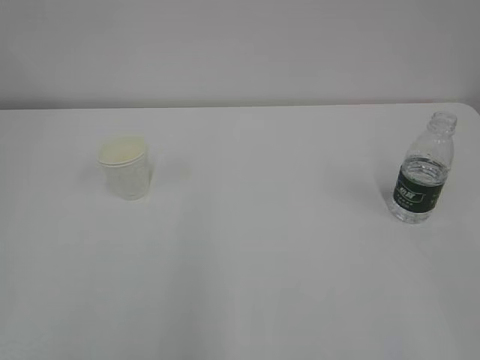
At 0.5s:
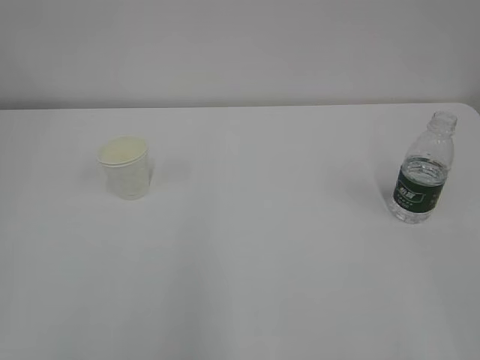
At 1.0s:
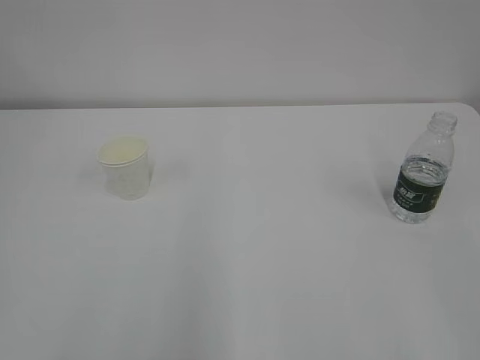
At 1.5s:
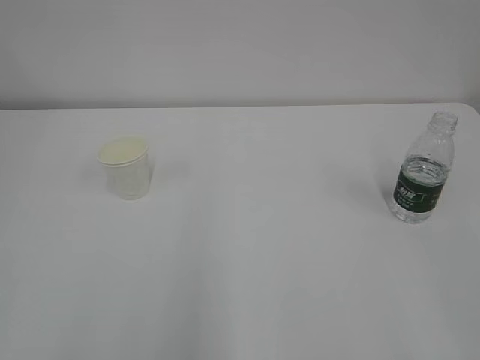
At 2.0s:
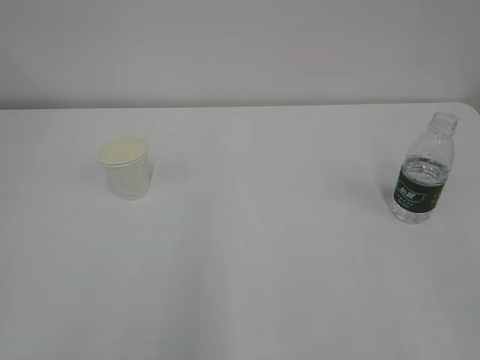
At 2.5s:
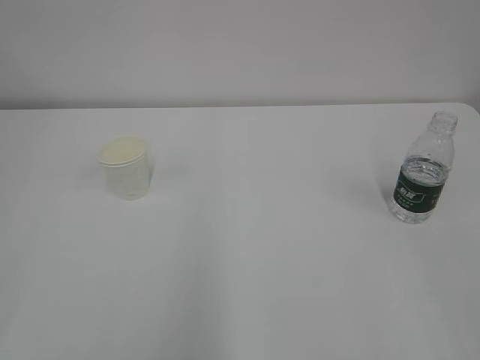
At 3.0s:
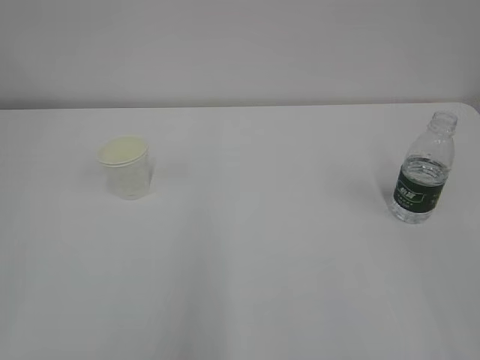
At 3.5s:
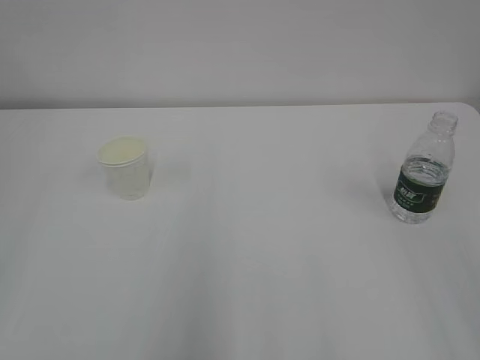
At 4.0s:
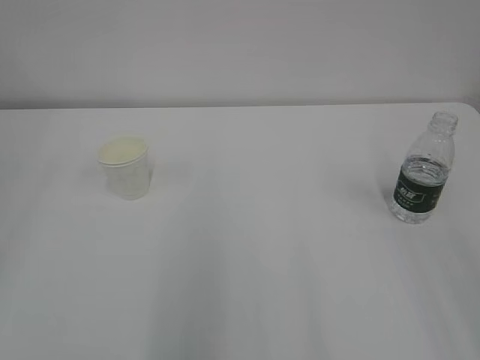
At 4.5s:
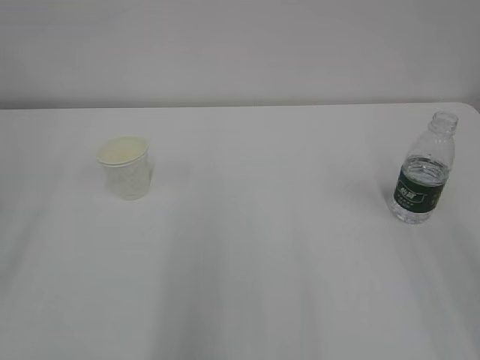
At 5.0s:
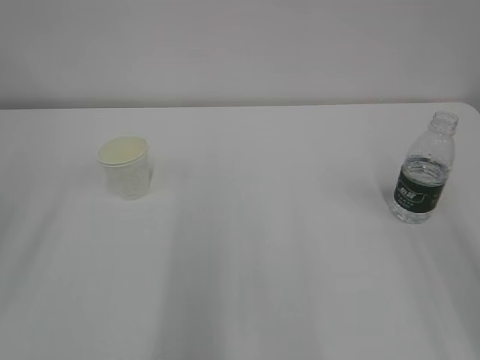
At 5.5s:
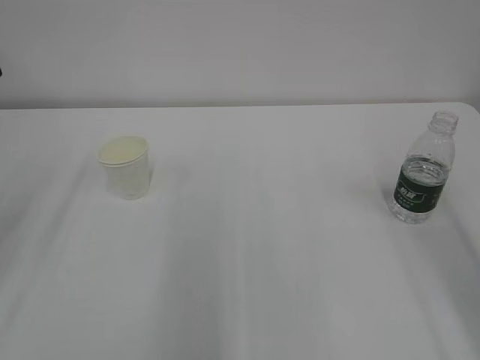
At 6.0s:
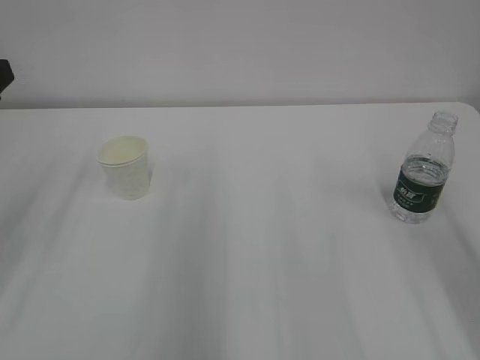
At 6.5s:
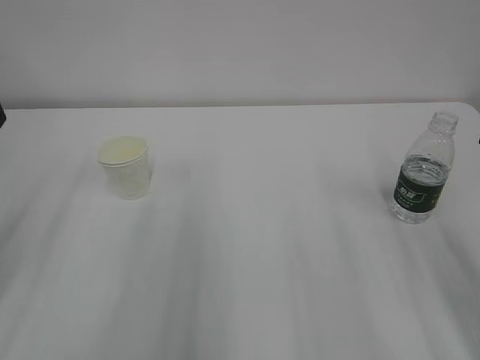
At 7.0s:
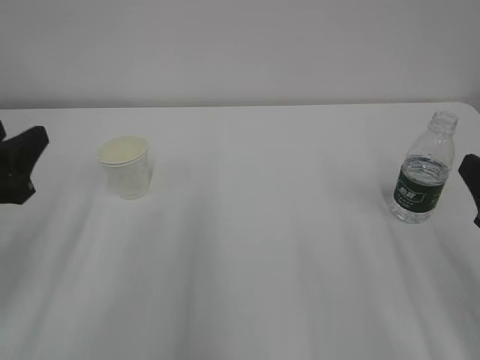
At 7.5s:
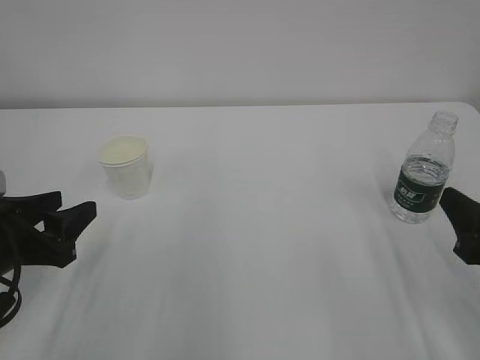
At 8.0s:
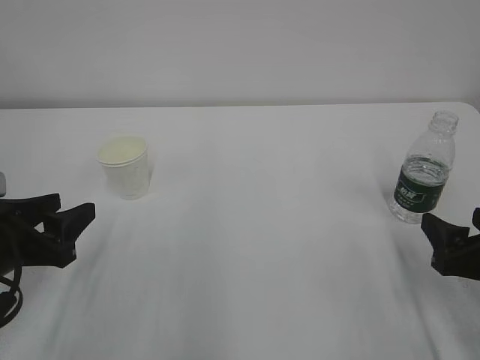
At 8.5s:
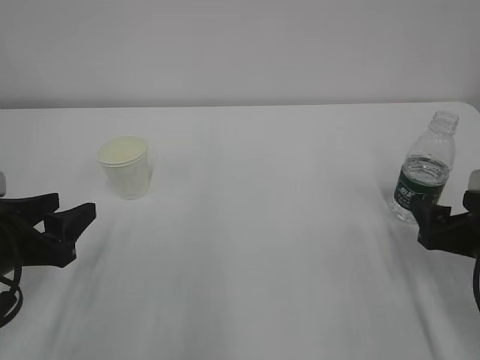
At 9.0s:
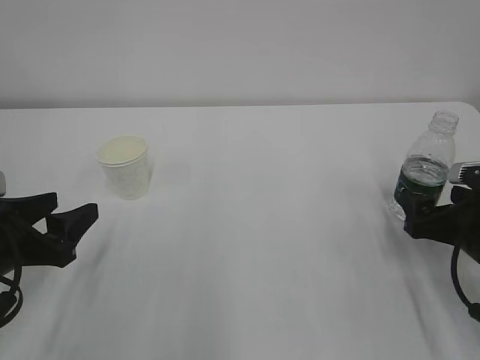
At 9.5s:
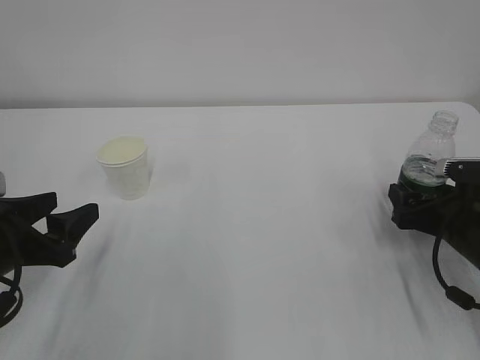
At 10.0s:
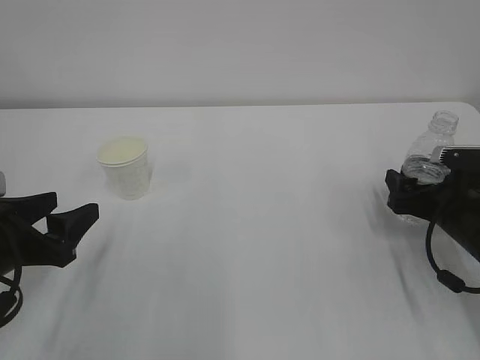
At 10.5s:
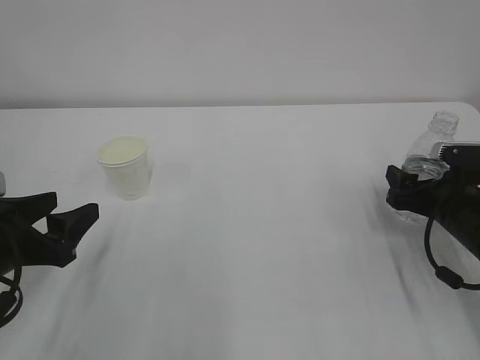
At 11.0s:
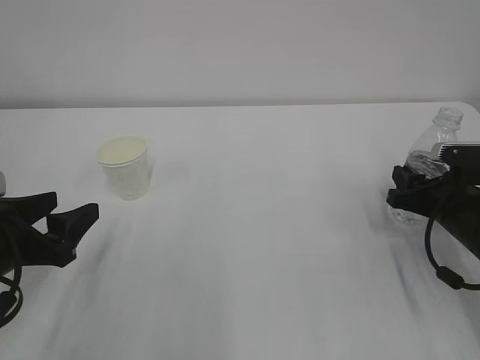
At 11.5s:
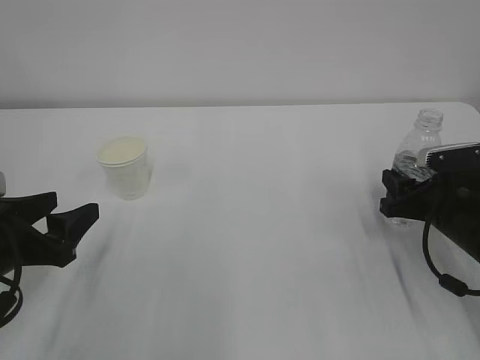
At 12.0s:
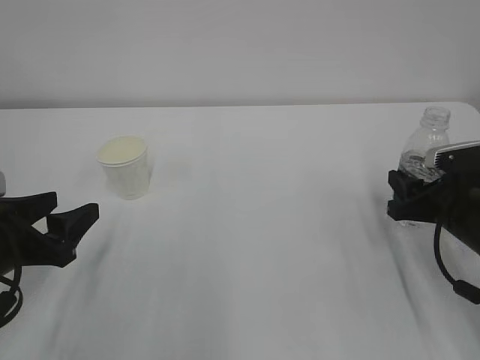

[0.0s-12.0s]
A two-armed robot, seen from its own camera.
6.0s to 8.0s: Both grippers travel together downward, some 15 cm.
8.0s to 10.0s: The right gripper shifts approximately 10 cm forward.
10.0s to 12.0s: The right gripper closes its fingers.

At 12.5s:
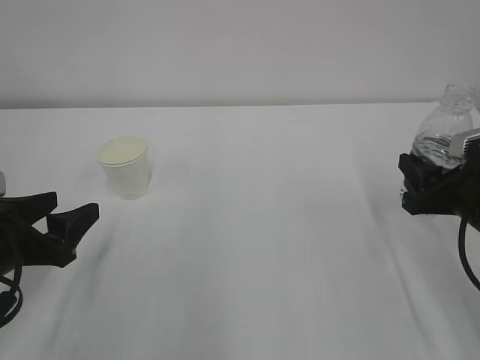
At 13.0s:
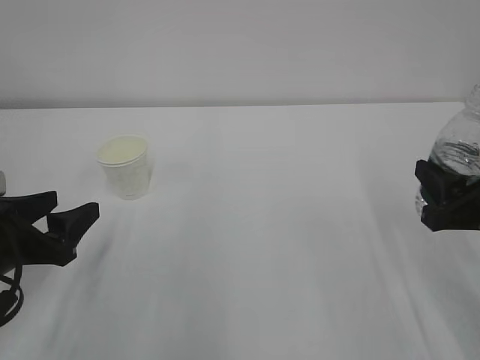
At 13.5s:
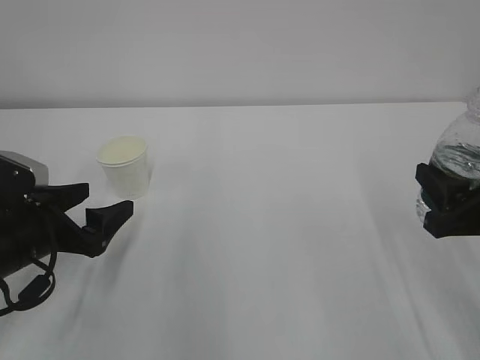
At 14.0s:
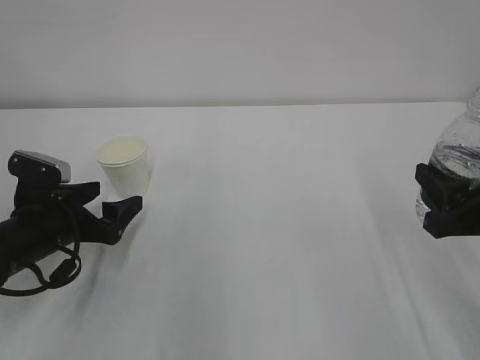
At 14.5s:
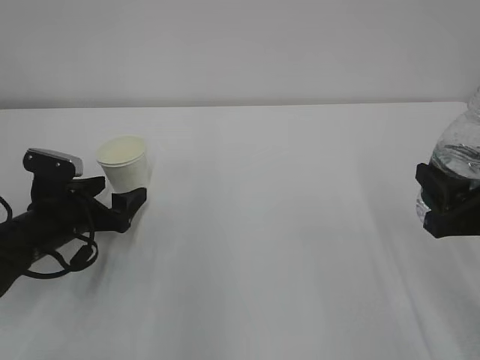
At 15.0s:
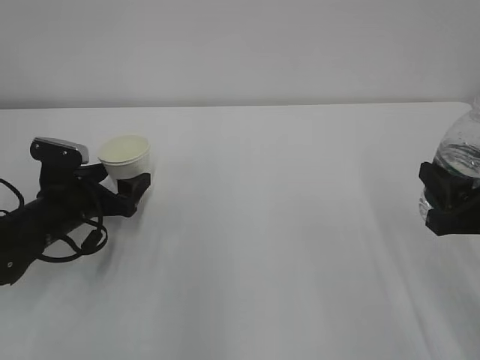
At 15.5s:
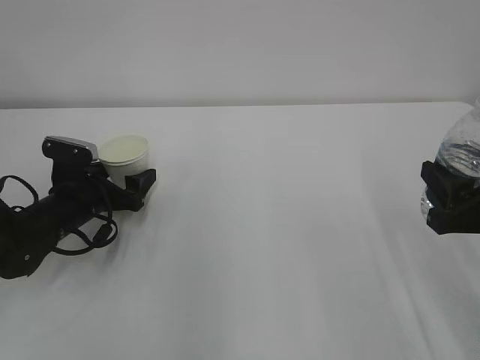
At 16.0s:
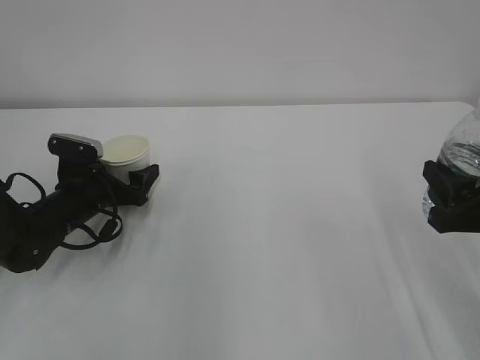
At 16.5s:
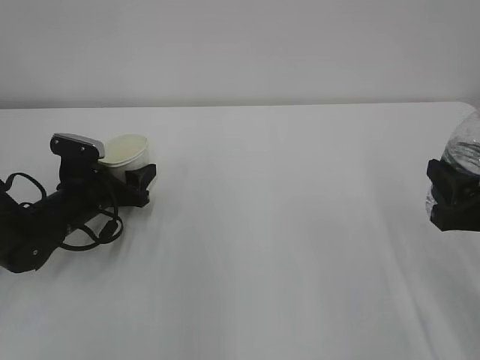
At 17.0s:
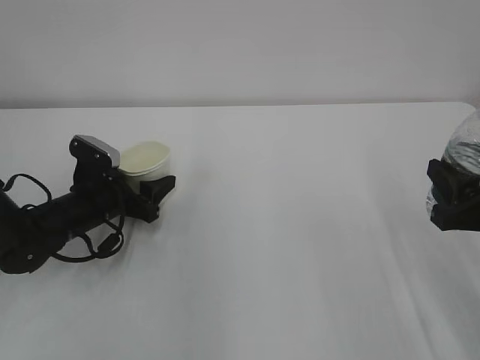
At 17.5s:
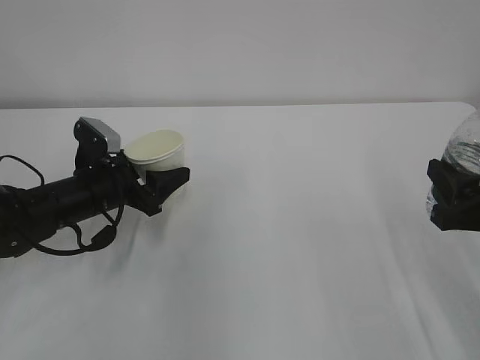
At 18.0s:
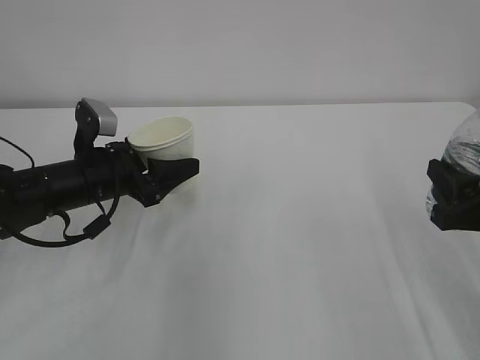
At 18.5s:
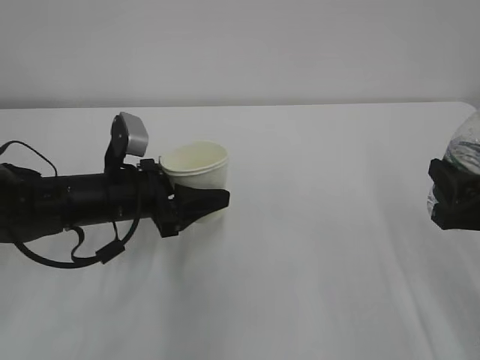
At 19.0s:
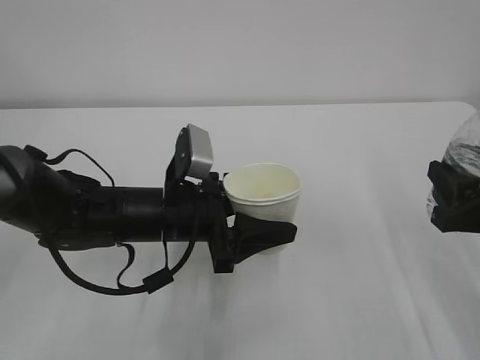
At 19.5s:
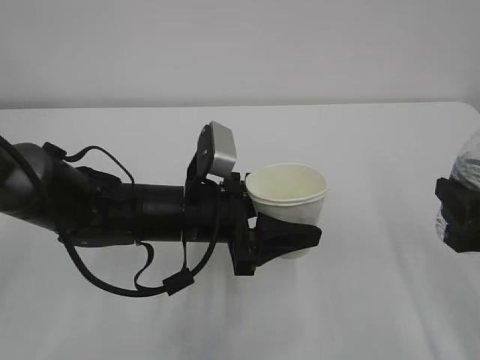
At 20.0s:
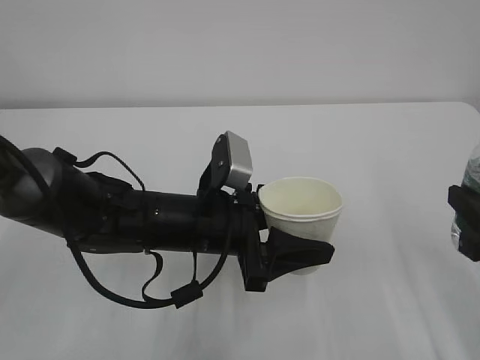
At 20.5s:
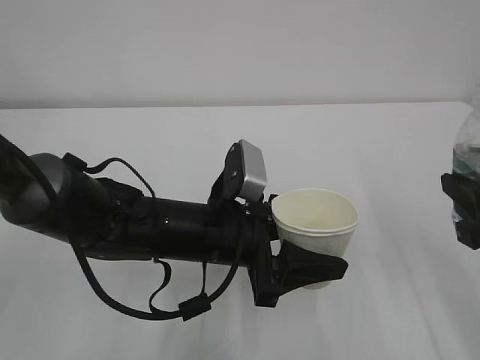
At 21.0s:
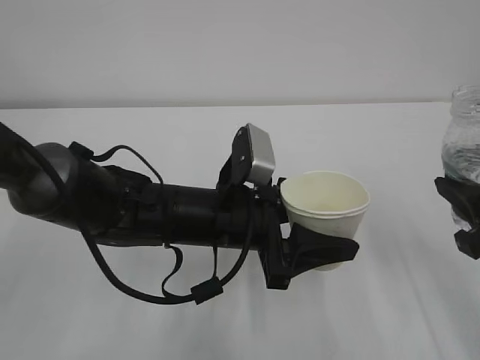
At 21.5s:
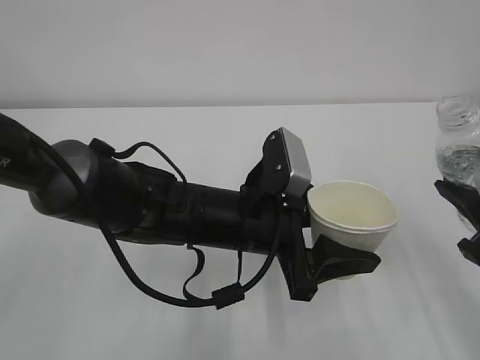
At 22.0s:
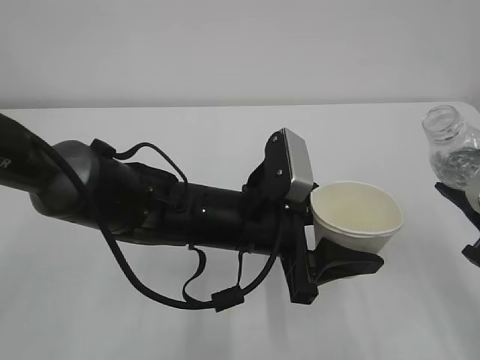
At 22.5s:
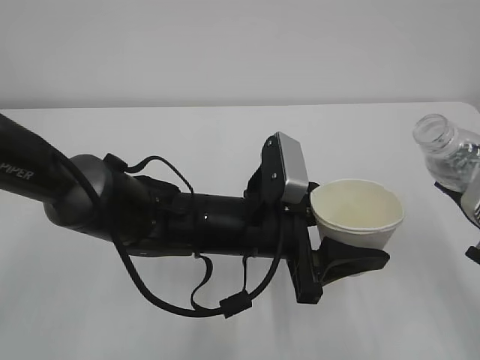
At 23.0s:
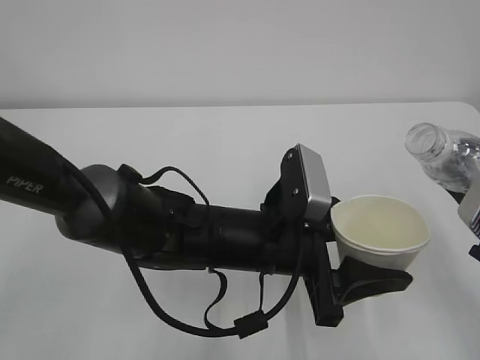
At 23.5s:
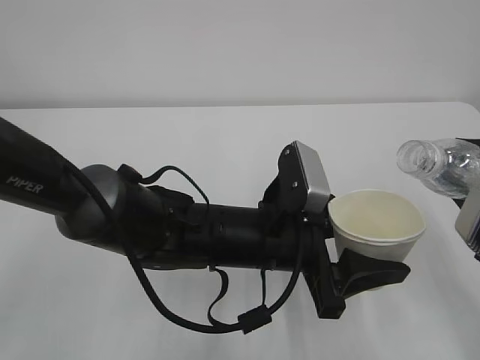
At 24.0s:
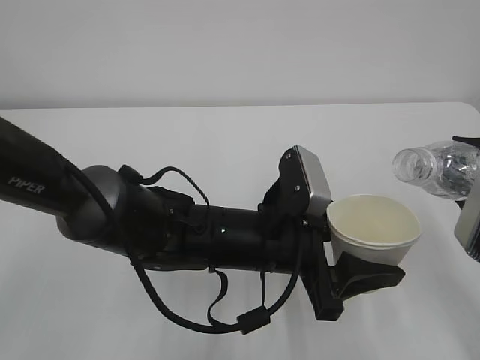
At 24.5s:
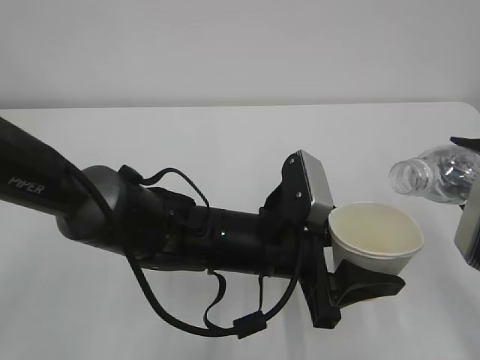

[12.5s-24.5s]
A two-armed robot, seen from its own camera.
12.5s to 14.5s: The left gripper is displaced forward and downward by about 10 cm, and opens.
14.5s to 16.5s: The left gripper goes roughly 5 cm forward, and closes up.
16.5s to 18.5s: The left gripper goes about 10 cm to the right, upward and backward.
18.5s to 20.5s: The right gripper ends up about 5 cm from where it was. Meanwhile the left gripper shifts approximately 15 cm to the right and backward.

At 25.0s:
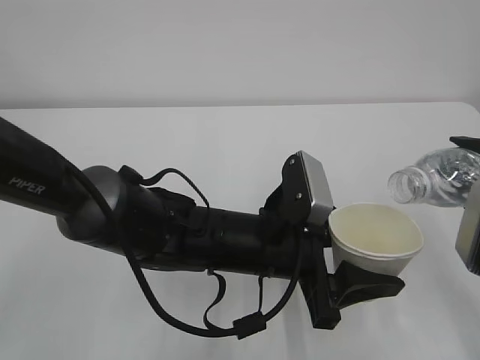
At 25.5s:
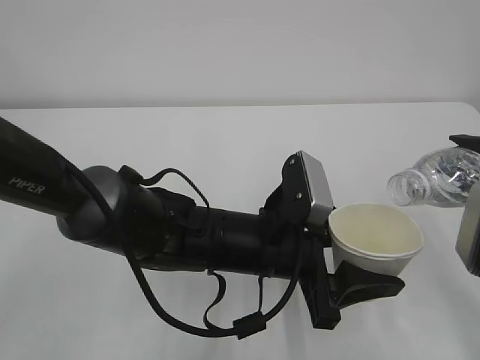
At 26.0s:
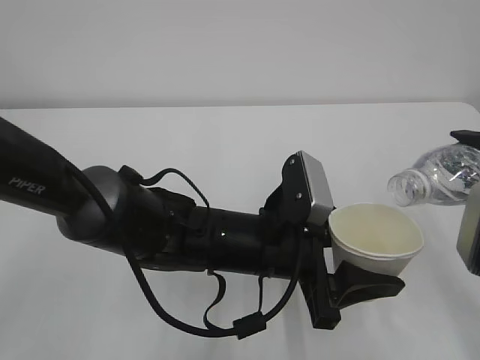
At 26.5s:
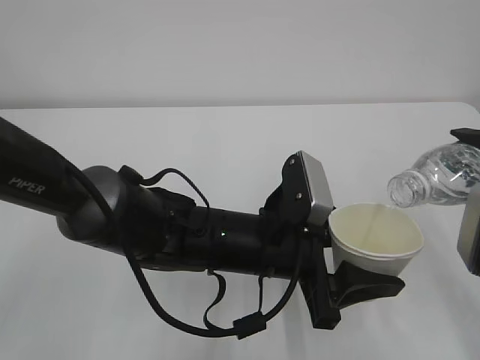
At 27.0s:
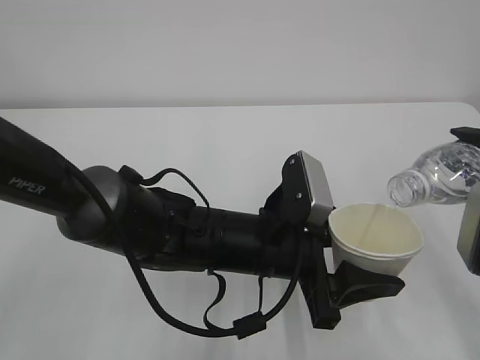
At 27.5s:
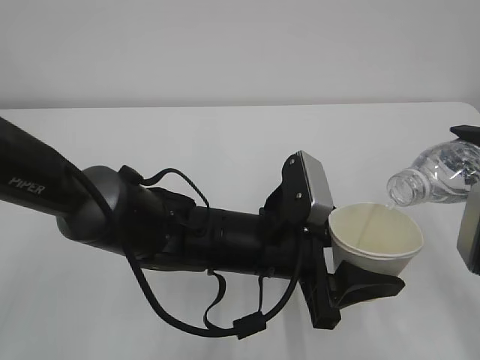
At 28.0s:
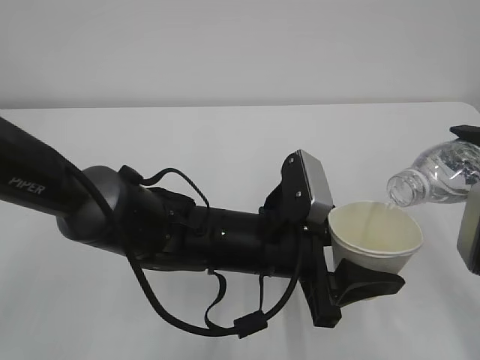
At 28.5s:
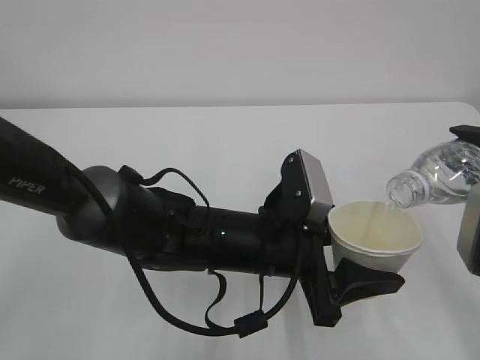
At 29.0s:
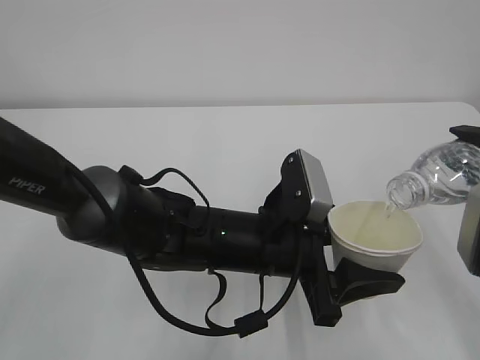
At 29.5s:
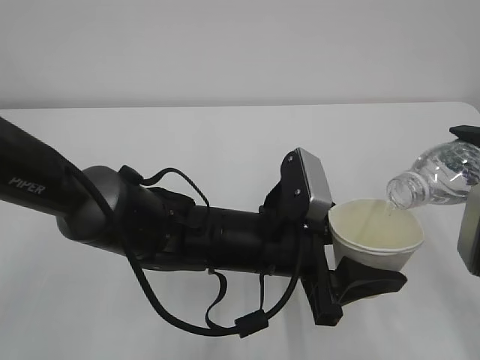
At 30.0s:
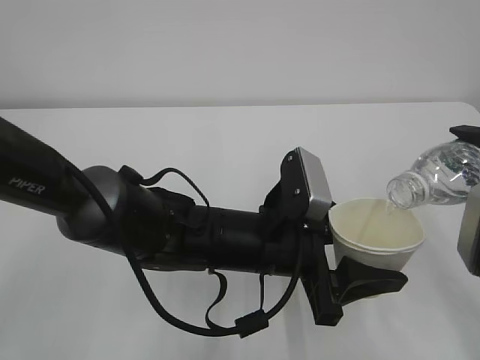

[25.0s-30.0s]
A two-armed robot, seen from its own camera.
25.0s to 27.5s: The grippers make only small movements.
27.5s to 30.0s: Neither gripper changes place.
